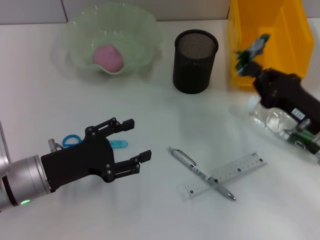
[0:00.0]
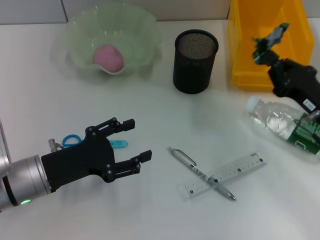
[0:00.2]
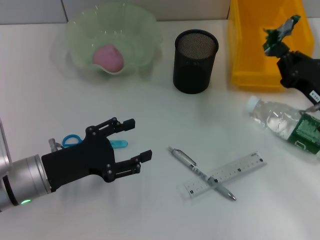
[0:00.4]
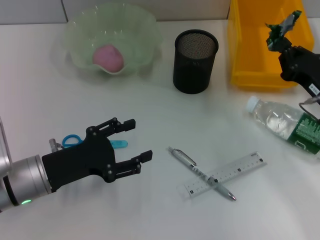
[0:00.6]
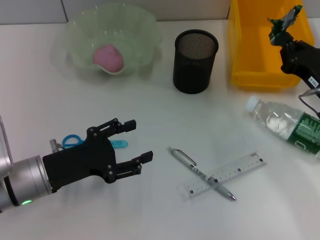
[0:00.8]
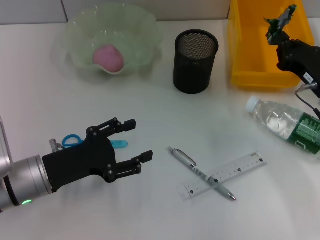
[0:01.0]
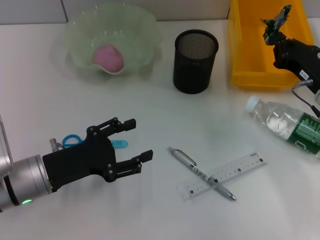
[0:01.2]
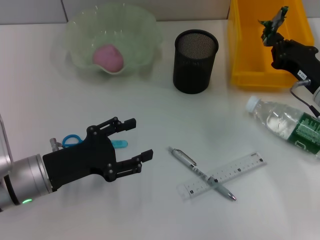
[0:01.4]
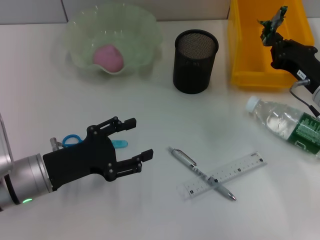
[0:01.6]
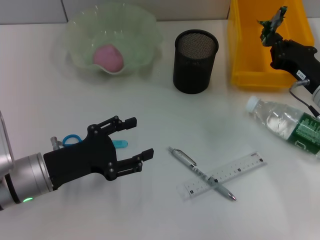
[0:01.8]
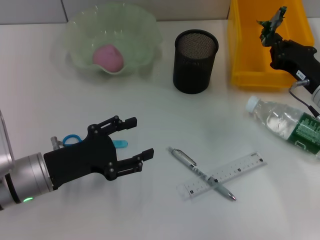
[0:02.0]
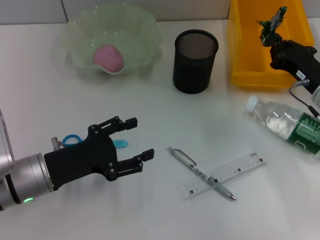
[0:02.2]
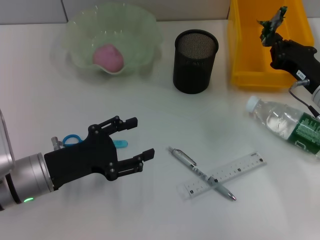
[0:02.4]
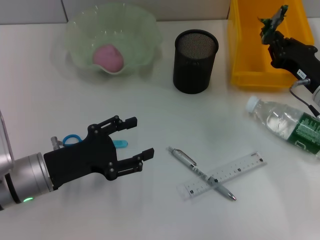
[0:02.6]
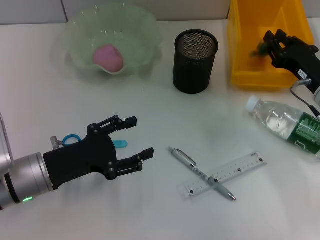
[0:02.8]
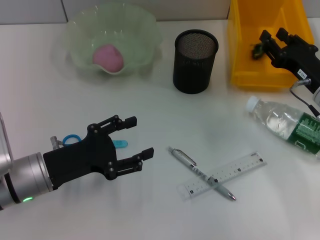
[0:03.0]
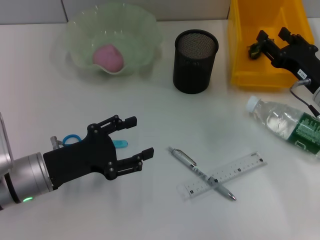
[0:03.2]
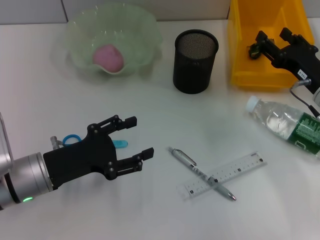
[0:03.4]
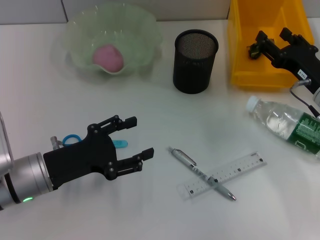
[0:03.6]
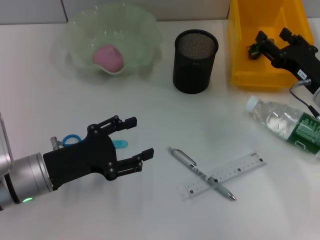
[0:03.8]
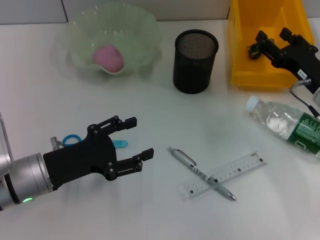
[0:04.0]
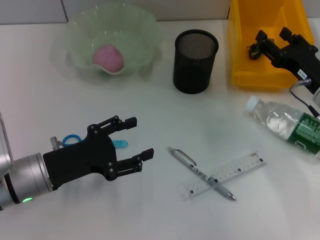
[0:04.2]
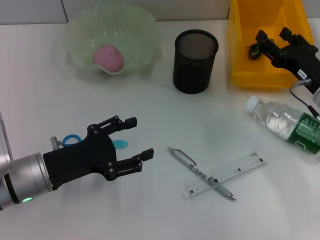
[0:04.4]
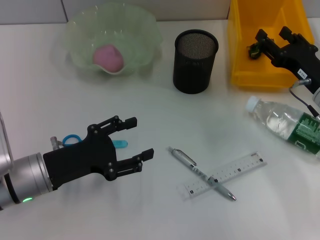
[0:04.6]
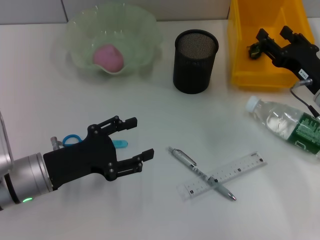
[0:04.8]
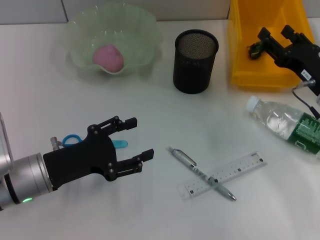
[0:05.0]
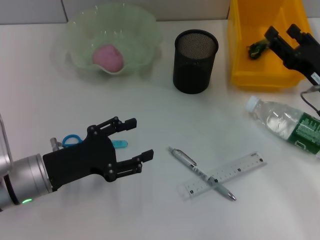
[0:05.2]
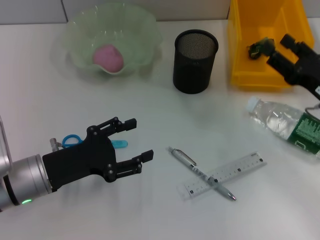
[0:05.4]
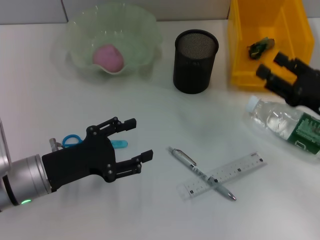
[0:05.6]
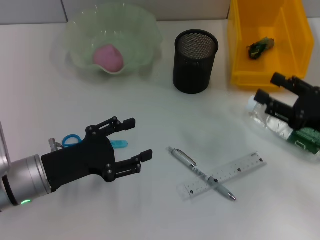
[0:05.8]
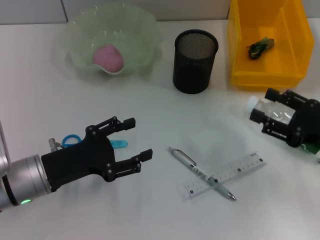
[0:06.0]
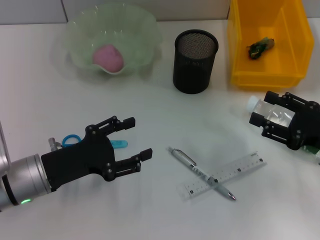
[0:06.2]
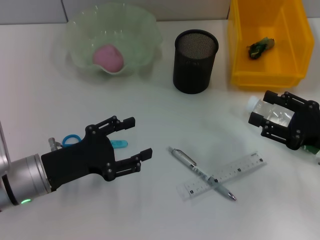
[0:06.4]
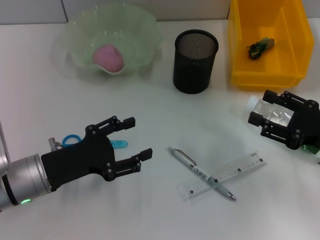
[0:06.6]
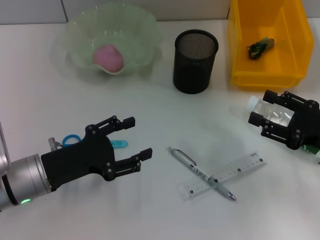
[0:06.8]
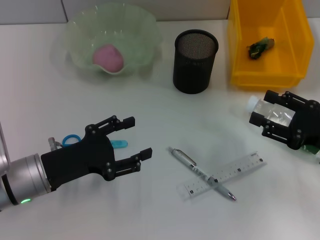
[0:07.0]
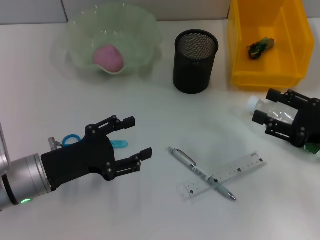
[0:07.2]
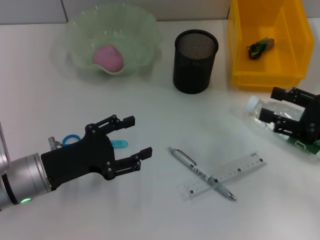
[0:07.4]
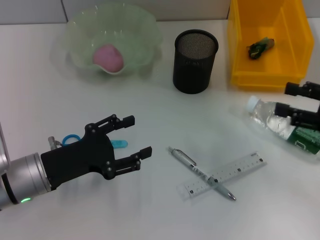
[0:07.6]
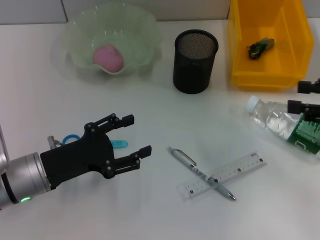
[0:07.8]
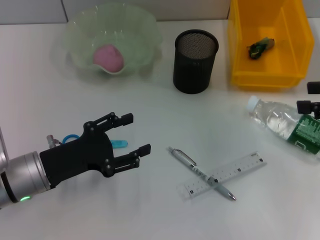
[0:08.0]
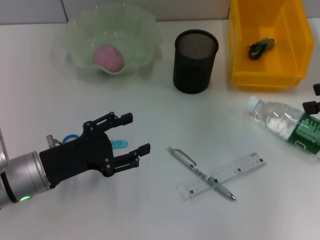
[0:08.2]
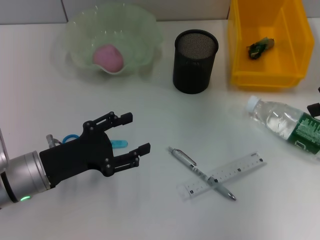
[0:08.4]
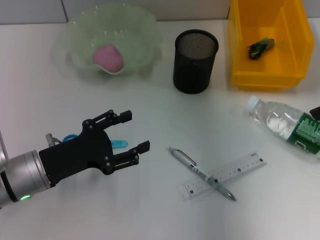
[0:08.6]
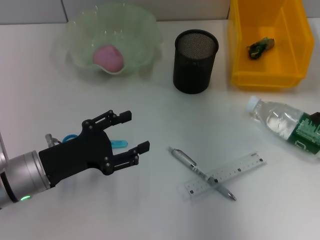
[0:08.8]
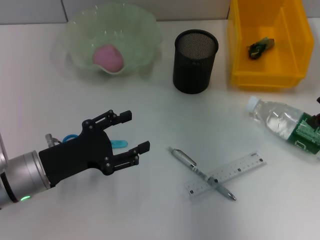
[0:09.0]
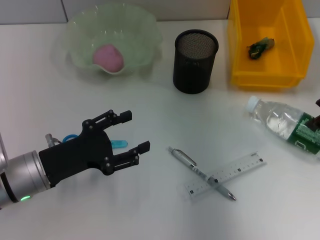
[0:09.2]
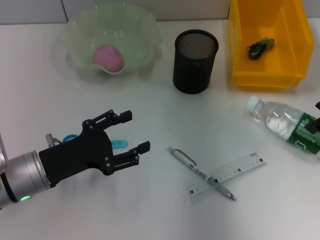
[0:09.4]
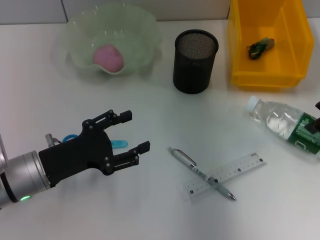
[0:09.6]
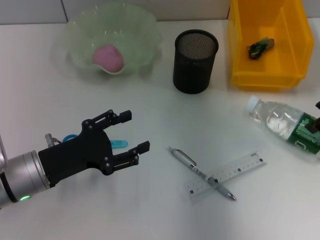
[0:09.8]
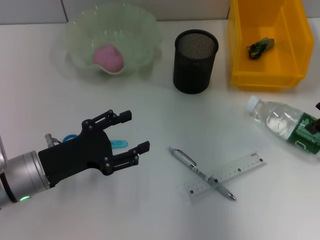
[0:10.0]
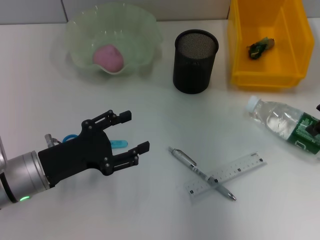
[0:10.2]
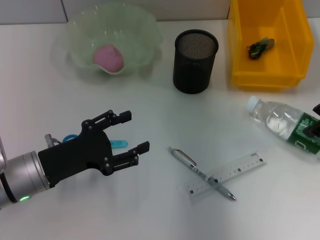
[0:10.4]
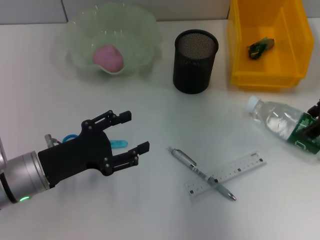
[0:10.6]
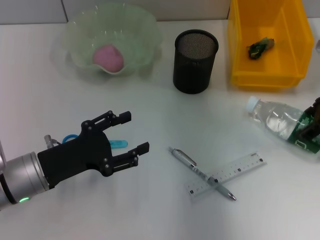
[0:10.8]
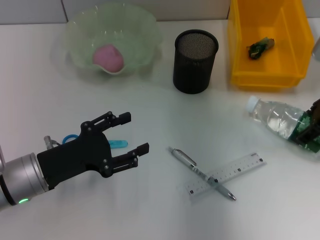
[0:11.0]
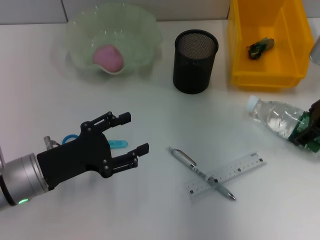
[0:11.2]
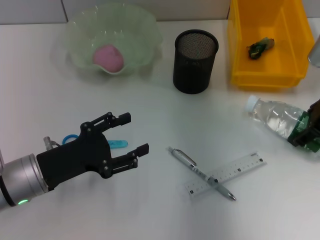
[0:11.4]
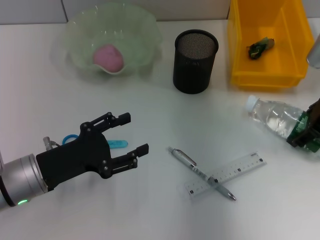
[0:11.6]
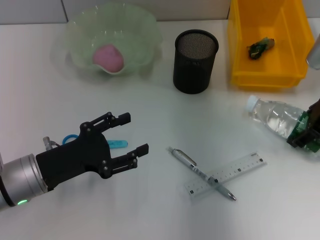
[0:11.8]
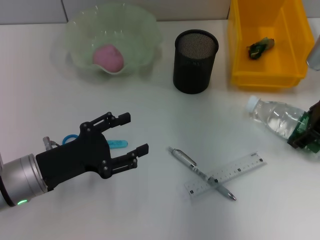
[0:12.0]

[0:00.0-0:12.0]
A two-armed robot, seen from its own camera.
Step, 0:00.0 to 0:03.0: Place the plastic into the trash can with the right hand.
0:00.0 to 0:01.6: The right gripper heads forward, covering some 5 cm.
0:01.6 to 0:03.0: The right gripper opens its fingers.
0:03.0 to 0:04.4: The right gripper opens.
0:04.4 to 0:06.0: The right gripper is displaced backward by some 10 cm.
0:06.0 to 0:07.6: The right gripper goes some 5 cm upward.
0:07.6 to 0:09.0: The right gripper heads forward and upward, covering about 10 cm.
0:10.4 to 0:12.0: There are only small adjustments of the grippers.

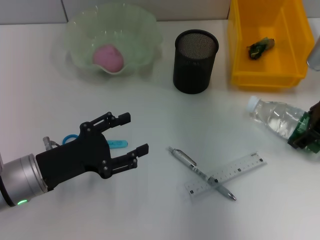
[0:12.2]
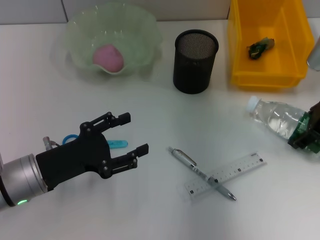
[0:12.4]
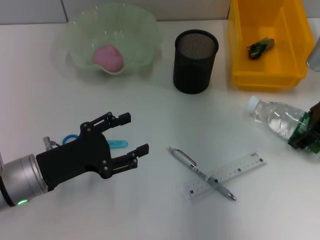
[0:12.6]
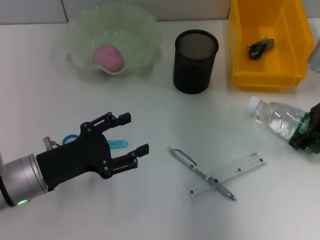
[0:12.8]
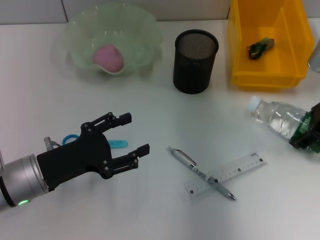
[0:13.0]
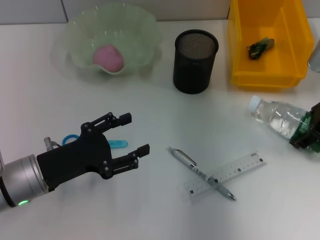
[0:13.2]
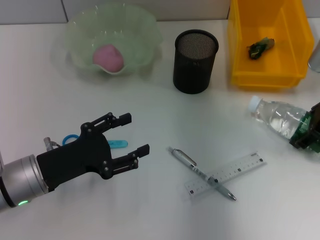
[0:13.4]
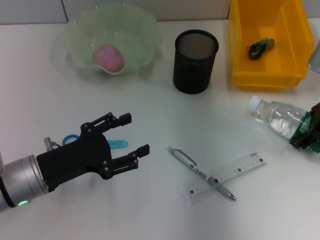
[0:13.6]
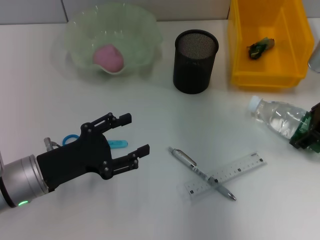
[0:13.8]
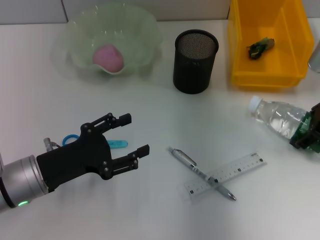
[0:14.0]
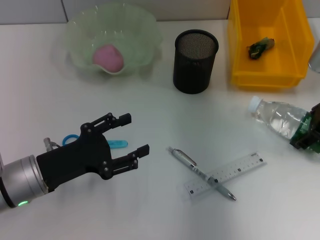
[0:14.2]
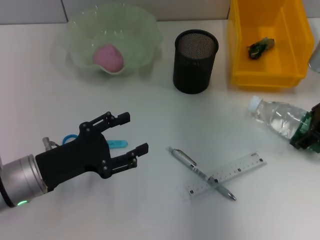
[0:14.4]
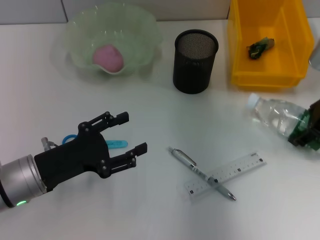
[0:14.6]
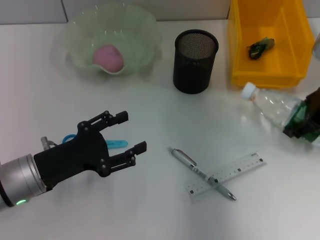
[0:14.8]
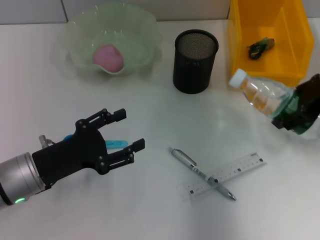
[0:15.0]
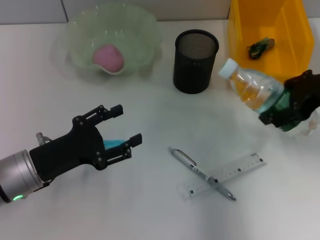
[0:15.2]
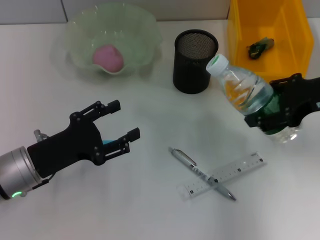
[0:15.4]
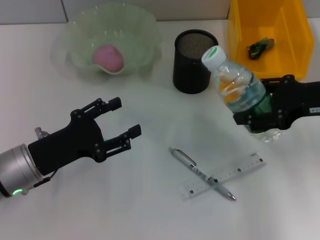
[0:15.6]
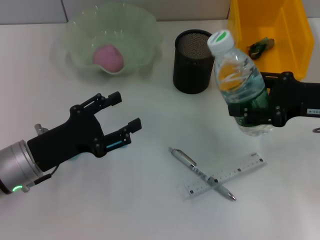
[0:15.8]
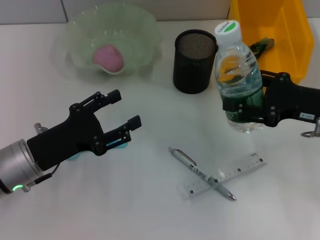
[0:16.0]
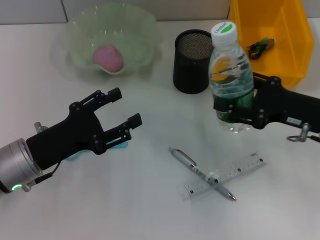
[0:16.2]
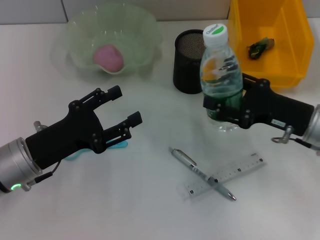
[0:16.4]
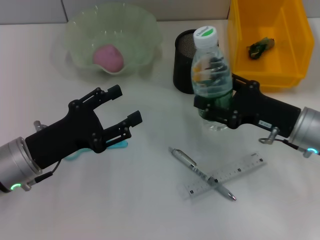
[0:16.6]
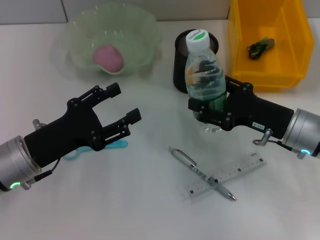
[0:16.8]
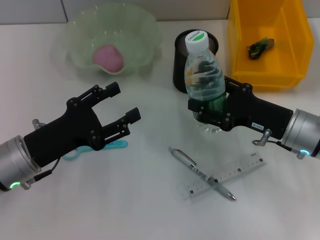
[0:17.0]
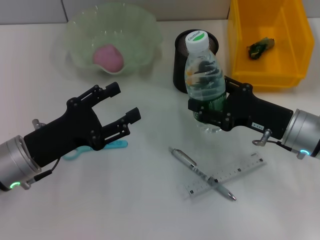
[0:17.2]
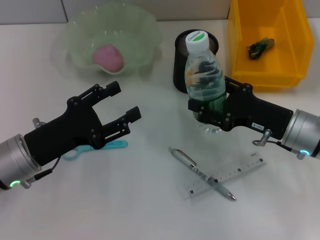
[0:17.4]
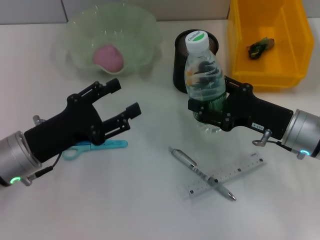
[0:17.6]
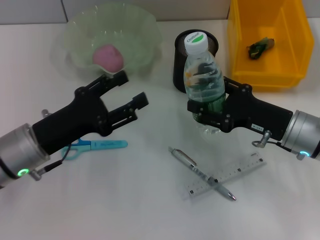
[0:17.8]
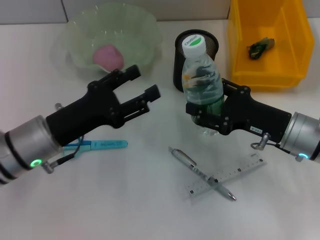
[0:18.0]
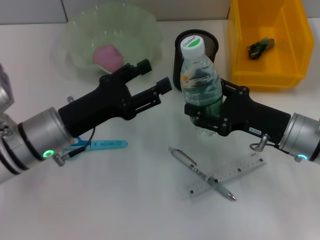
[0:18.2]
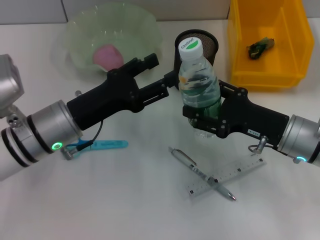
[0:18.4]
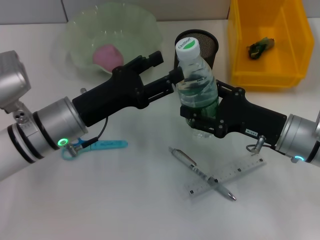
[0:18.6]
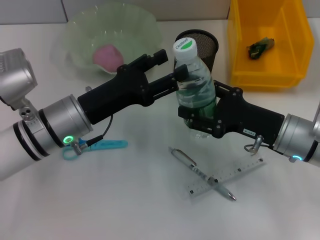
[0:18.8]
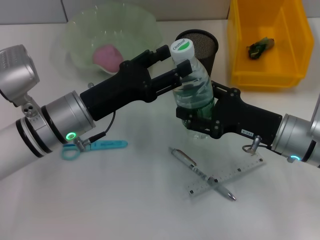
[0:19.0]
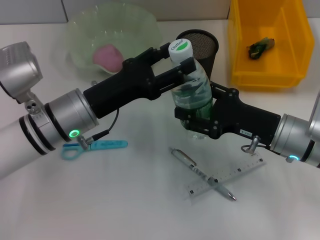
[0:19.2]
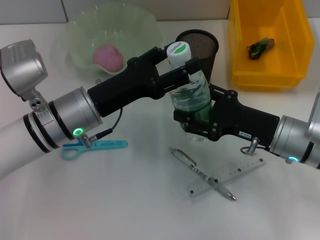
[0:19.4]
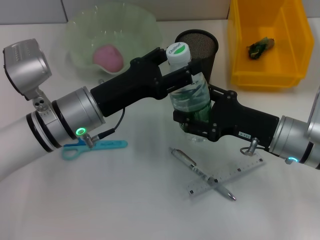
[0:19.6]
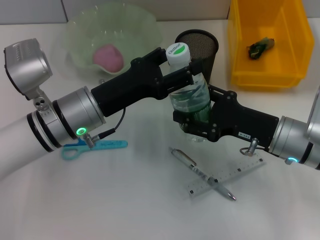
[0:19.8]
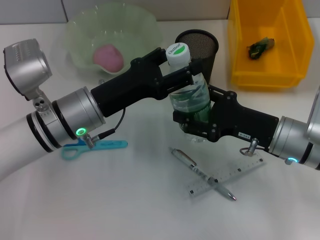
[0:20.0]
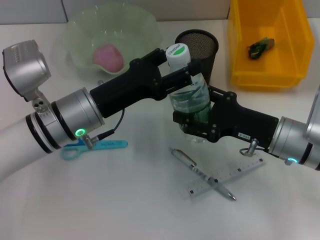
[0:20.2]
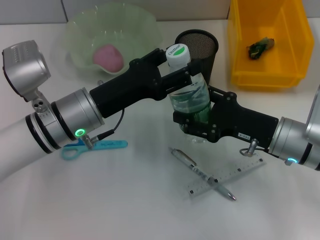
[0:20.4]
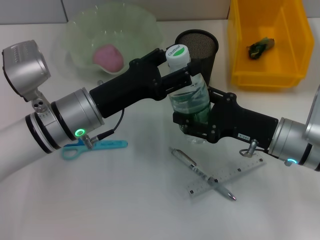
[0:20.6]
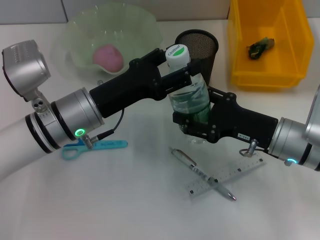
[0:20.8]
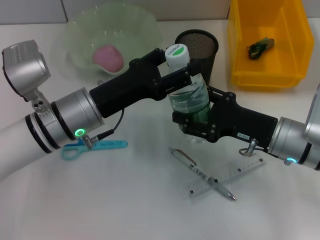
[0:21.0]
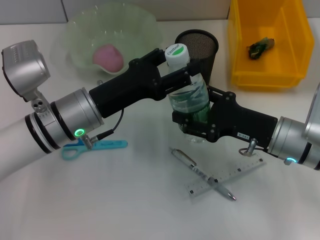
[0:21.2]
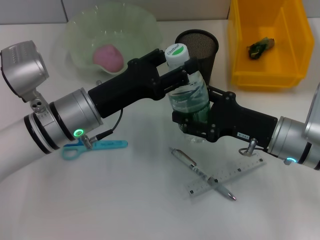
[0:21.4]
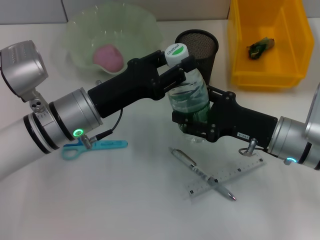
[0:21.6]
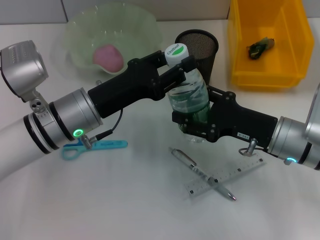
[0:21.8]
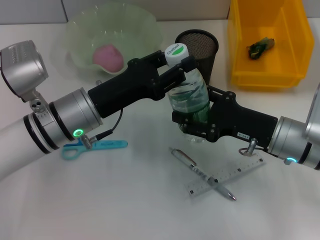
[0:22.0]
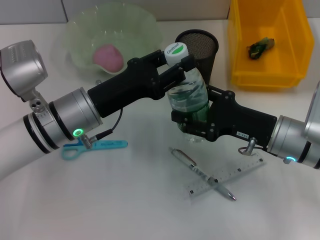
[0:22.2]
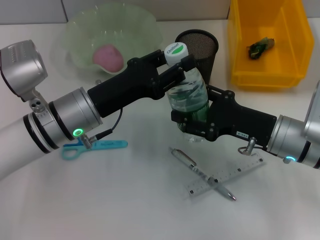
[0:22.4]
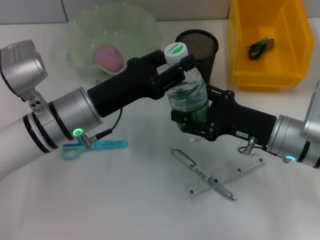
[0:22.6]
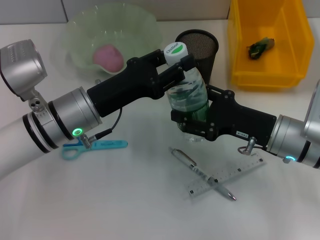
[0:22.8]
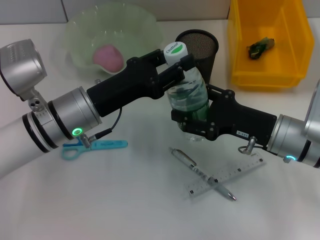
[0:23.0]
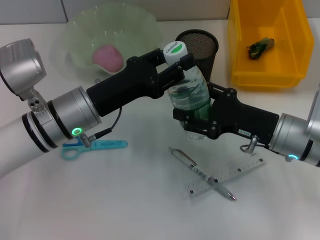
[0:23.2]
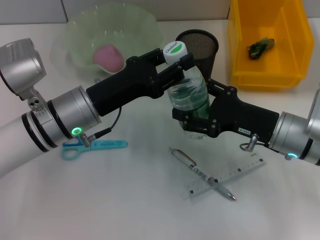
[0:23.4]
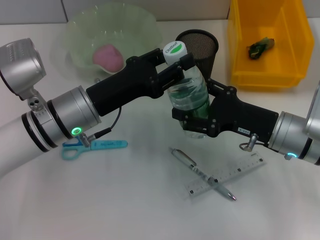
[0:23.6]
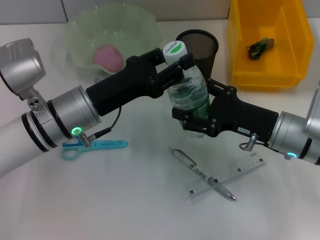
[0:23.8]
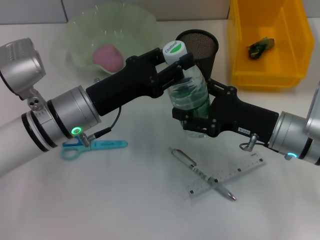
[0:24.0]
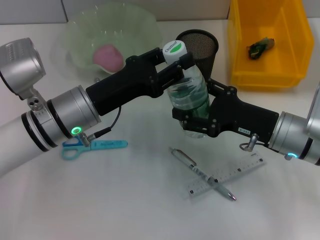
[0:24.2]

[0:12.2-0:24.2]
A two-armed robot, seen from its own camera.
0:12.2 to 0:13.8: Both grippers stay put.
0:15.2 to 0:16.6: The right gripper is displaced downward by roughly 15 cm.
0:16.6 to 0:18.2: The left gripper changes place by about 5 cm.
0:18.2 to 0:19.8: The left gripper moves some 5 cm.
0:19.8 to 0:21.2: Neither gripper changes place.
0:21.2 to 0:22.6: The left gripper closes up.
0:22.6 to 0:24.2: The two grippers keep their place.
